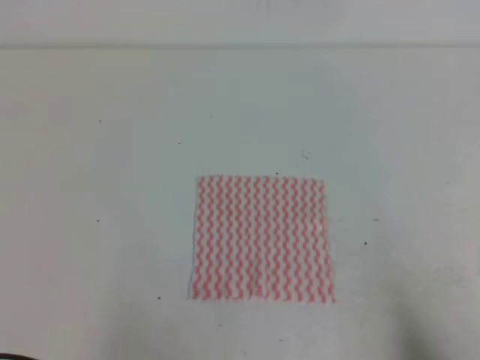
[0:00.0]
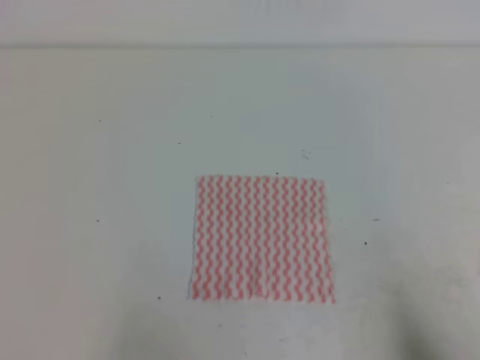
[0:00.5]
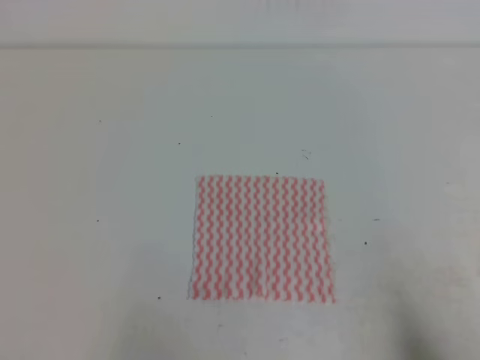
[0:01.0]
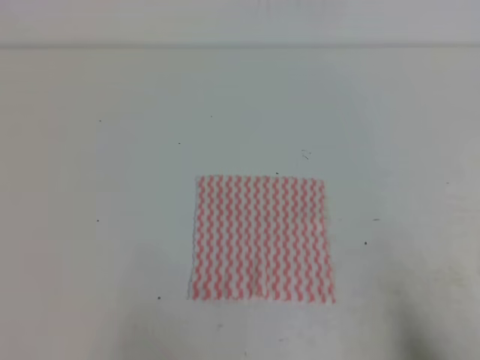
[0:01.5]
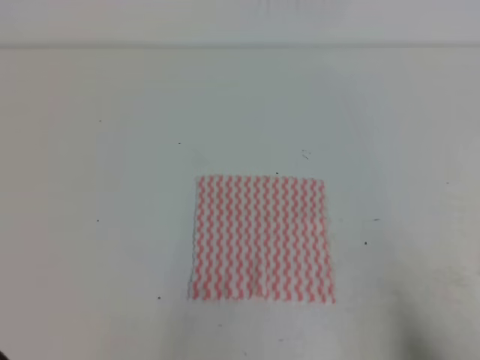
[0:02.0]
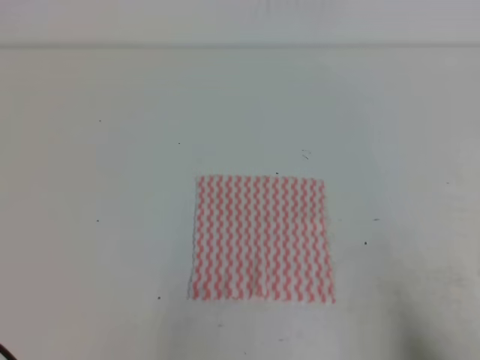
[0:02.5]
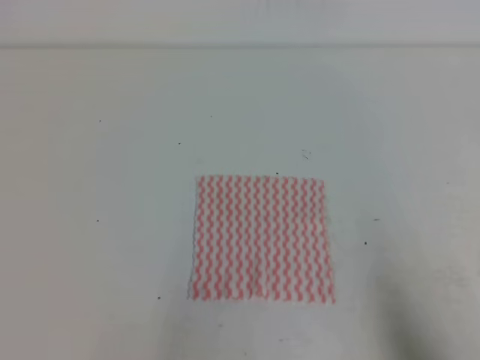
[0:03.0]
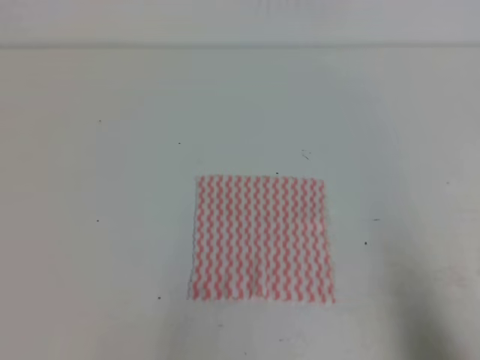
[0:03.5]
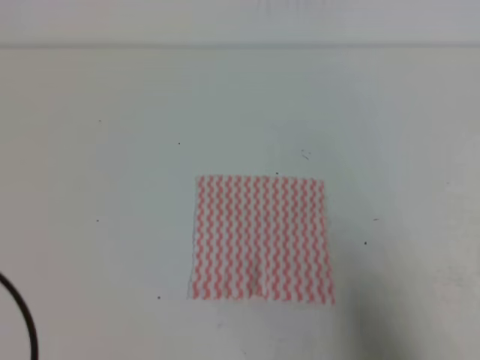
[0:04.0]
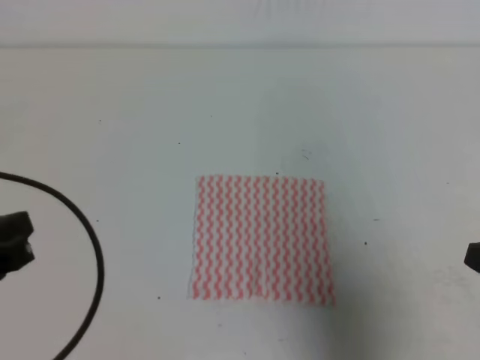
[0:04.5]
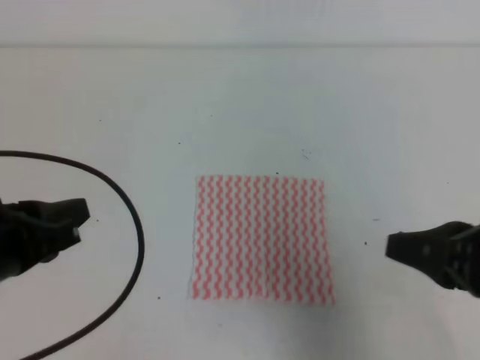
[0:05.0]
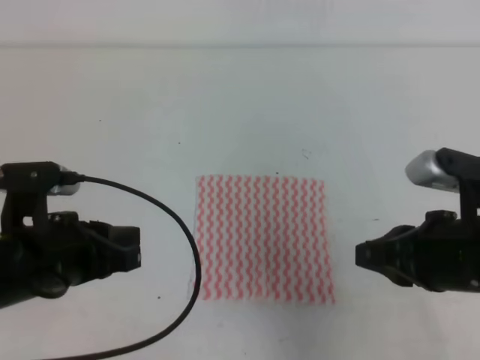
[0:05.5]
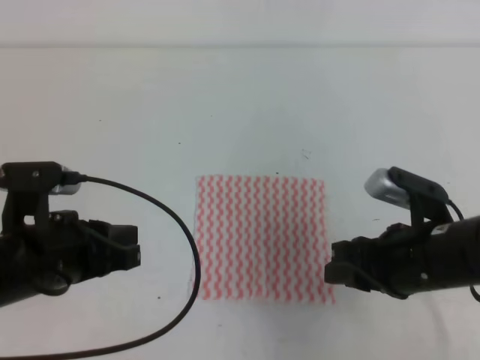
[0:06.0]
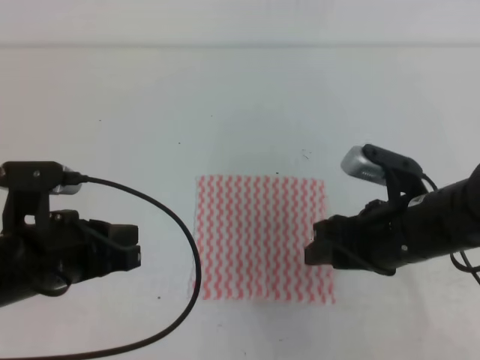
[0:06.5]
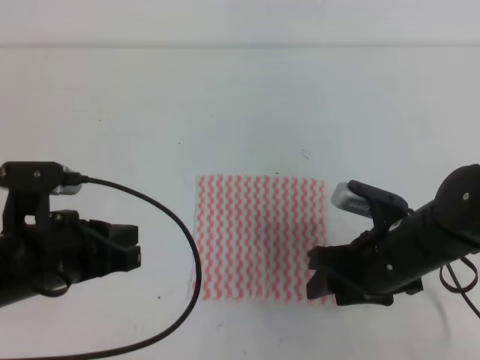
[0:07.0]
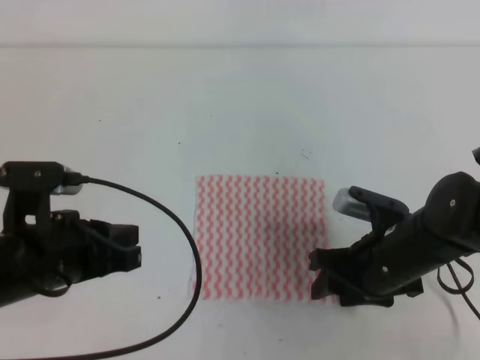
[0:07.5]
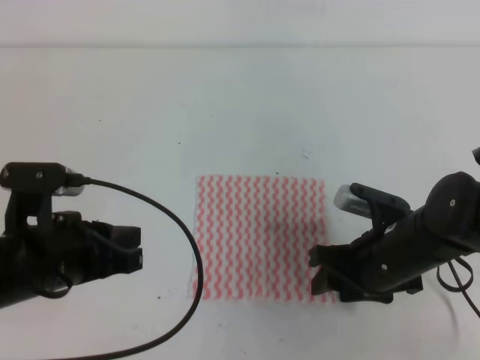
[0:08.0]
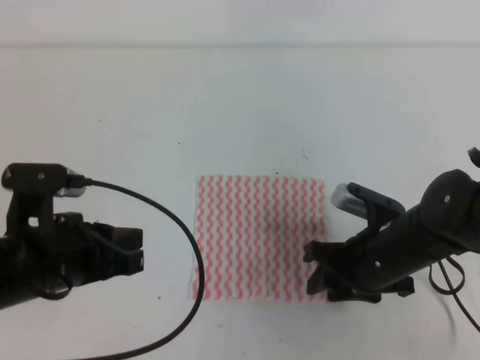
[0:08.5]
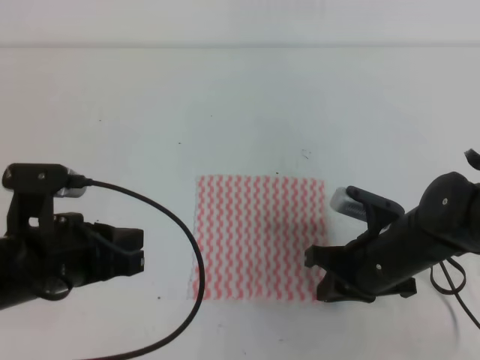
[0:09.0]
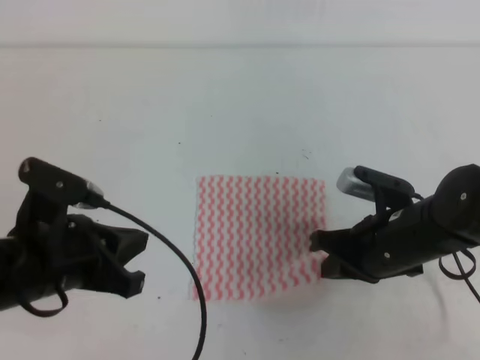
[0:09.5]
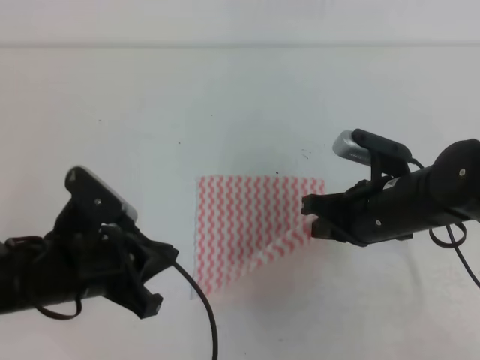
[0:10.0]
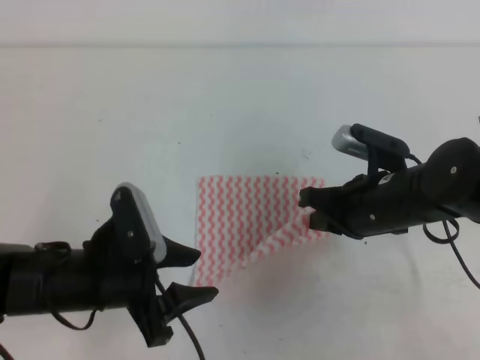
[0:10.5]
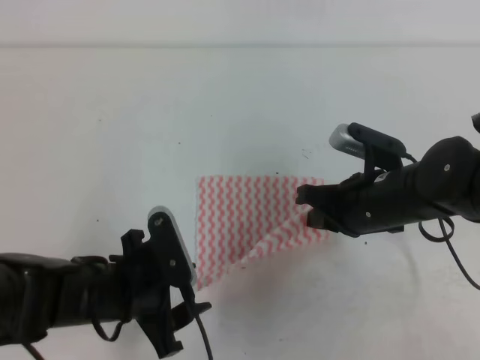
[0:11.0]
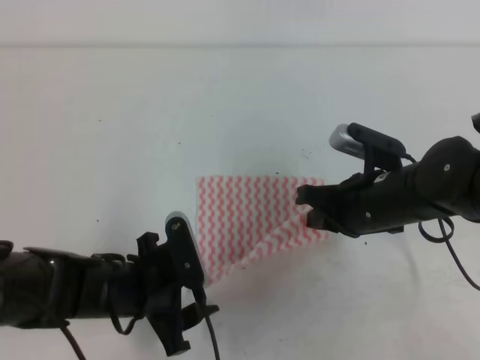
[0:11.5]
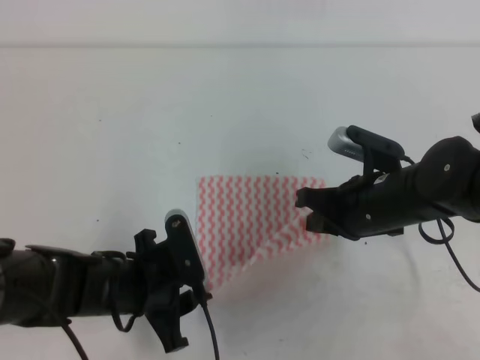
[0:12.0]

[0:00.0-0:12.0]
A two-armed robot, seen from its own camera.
0:02.0 to 0:04.0: The two grippers go approximately 5 cm upward.
0:04.0 to 0:06.0: The right gripper moves forward and to the left, some 20 cm, and opens its fingers. The left gripper goes approximately 15 cm forward and to the right.
0:06.0 to 0:08.0: The right gripper moves downward, approximately 5 cm.
0:08.0 to 0:10.0: The right gripper closes up.
0:10.0 to 0:12.0: The left gripper is displaced downward by roughly 10 cm, and opens.

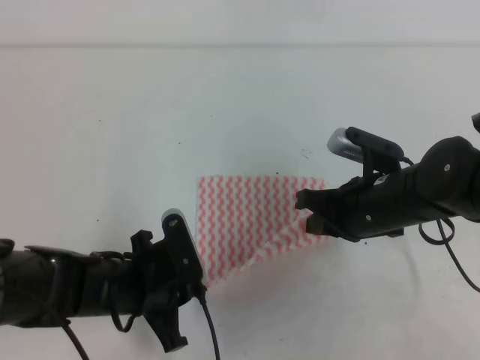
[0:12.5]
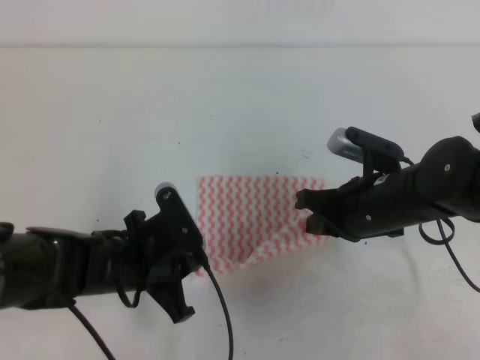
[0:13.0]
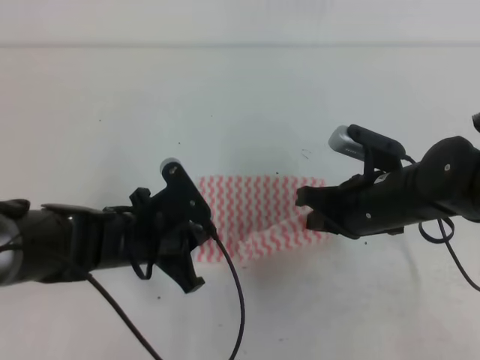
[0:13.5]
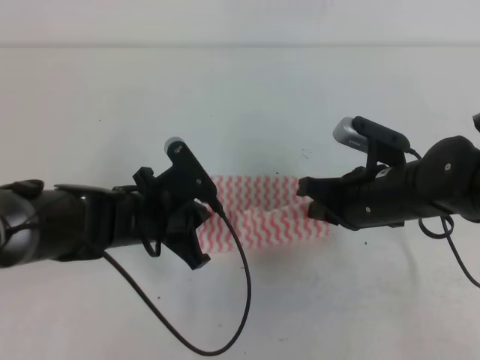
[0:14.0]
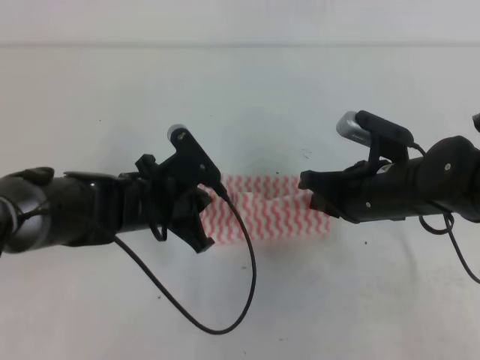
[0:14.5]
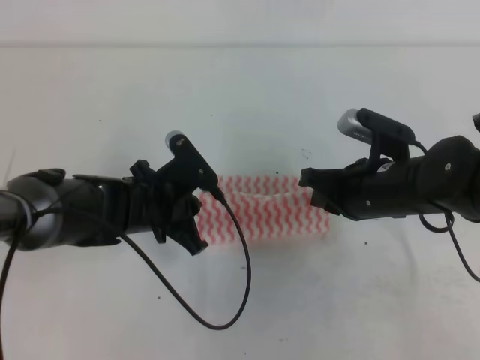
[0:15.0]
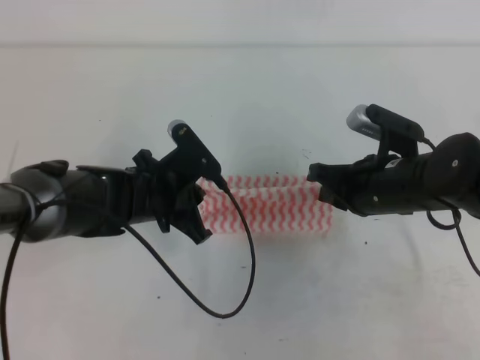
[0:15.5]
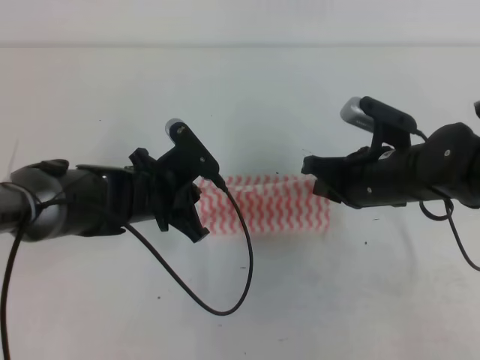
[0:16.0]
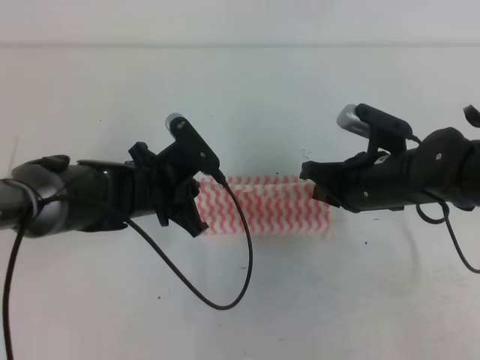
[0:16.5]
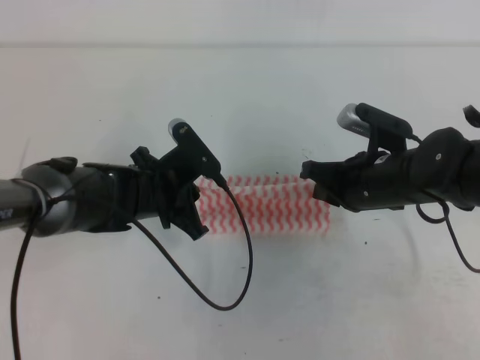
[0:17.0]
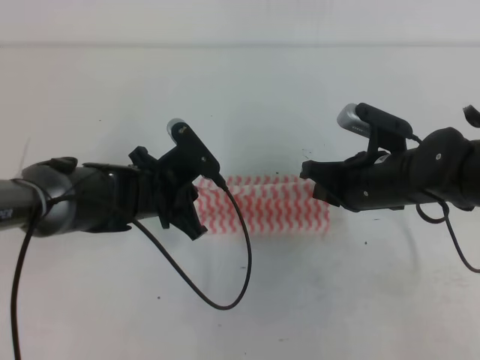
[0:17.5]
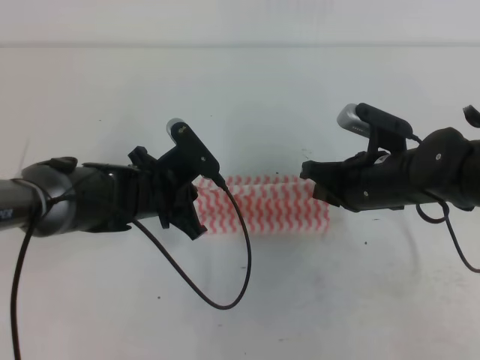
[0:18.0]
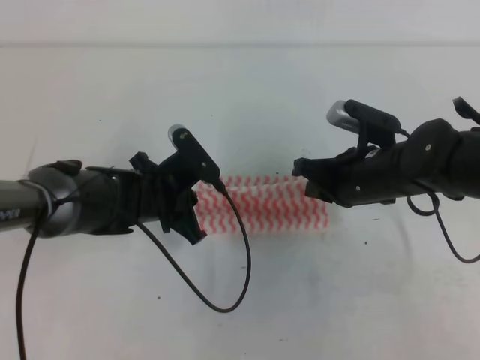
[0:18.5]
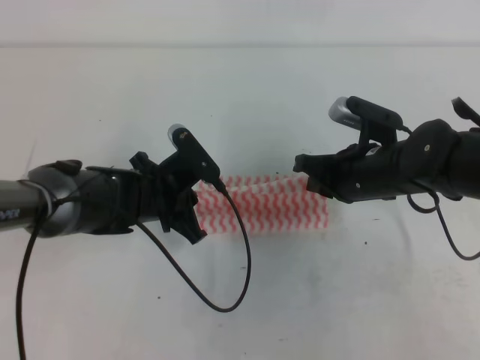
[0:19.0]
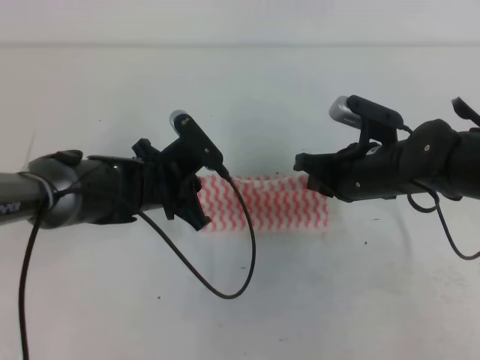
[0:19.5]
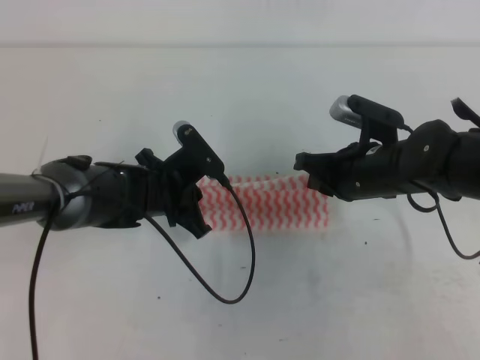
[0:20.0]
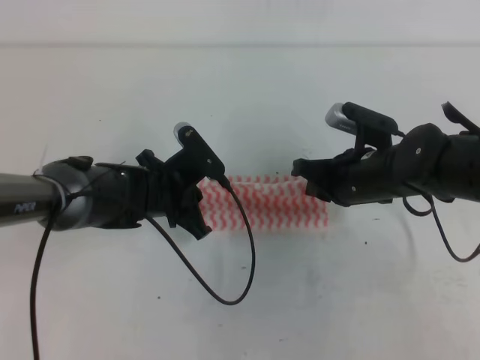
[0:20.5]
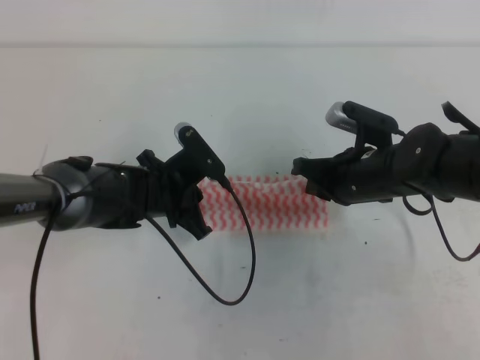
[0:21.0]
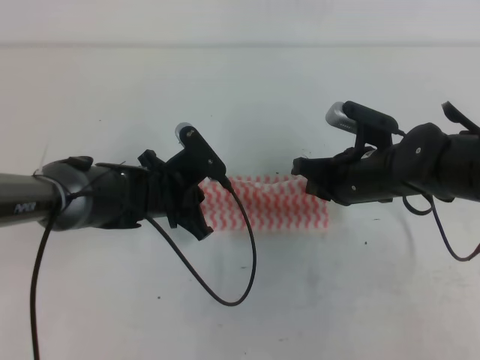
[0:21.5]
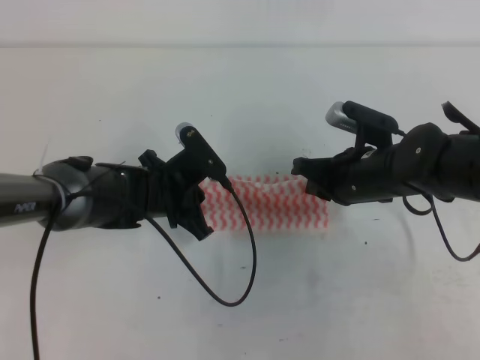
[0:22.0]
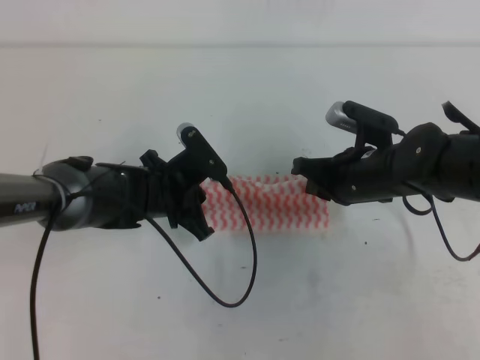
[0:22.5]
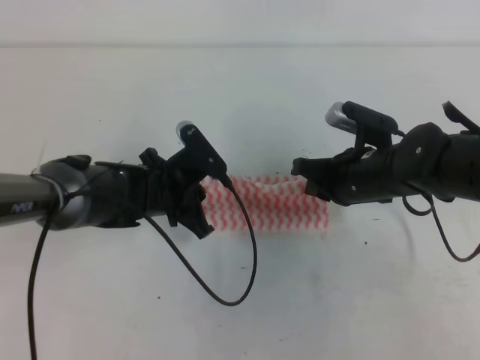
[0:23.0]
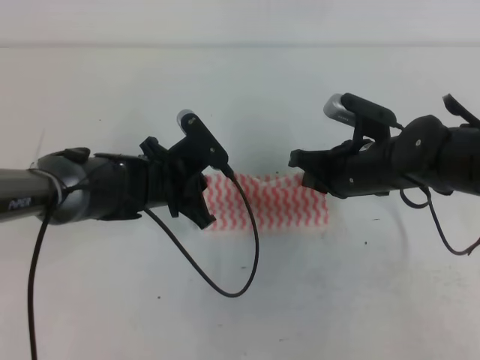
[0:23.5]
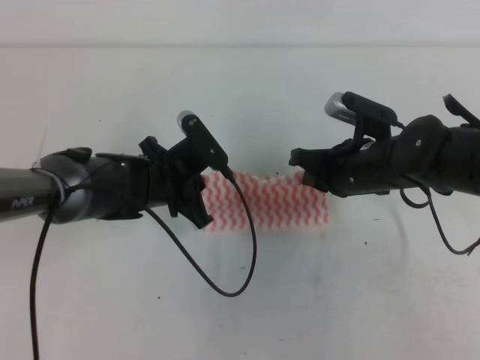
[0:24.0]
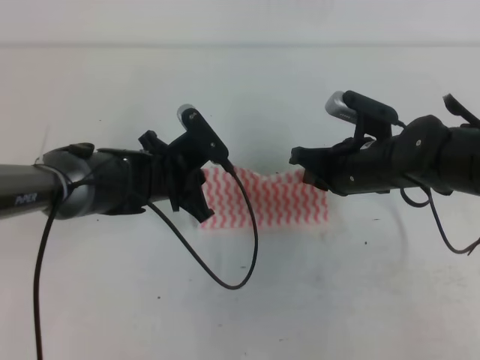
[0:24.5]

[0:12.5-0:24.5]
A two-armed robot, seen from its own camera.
0:12.5 to 0:14.5: The left gripper travels forward by some 10 cm.
0:14.5 to 0:16.5: The grippers make only small movements.
0:16.5 to 0:18.5: The two grippers keep their place.
0:18.5 to 0:20.5: The grippers move only a little.
0:20.5 to 0:22.5: Both grippers stay about where they are.
0:22.5 to 0:24.5: The grippers make only small movements.

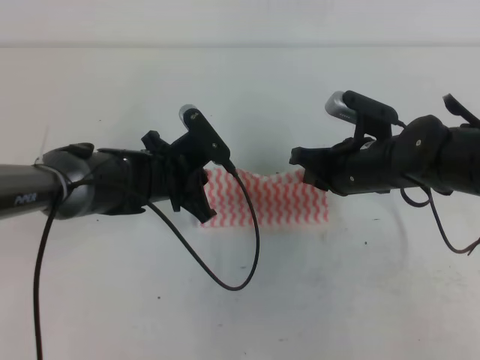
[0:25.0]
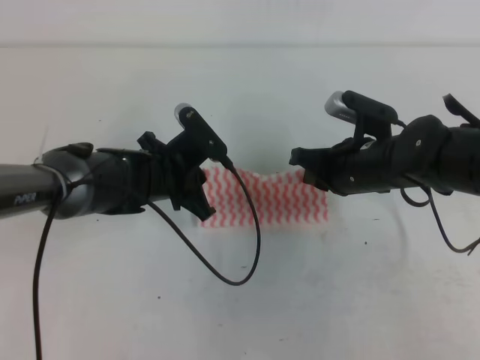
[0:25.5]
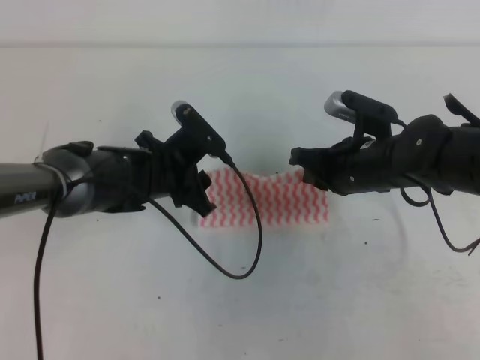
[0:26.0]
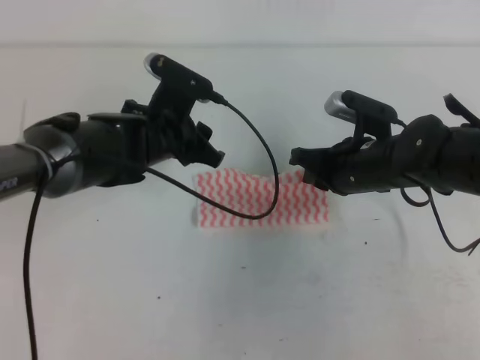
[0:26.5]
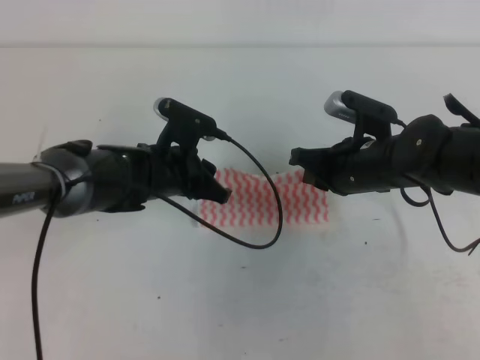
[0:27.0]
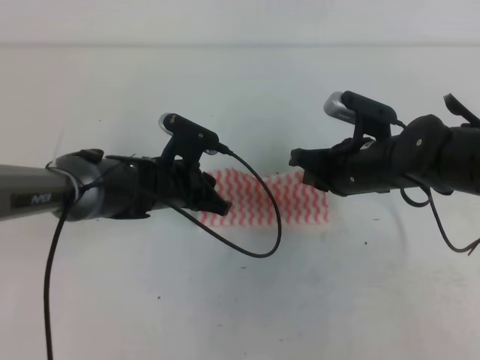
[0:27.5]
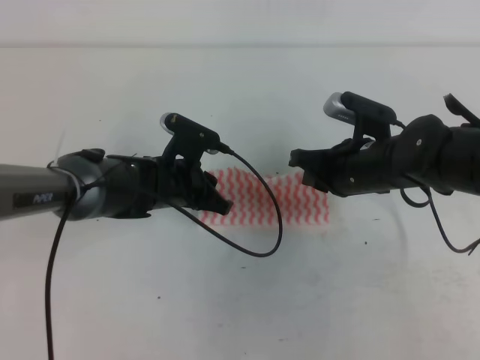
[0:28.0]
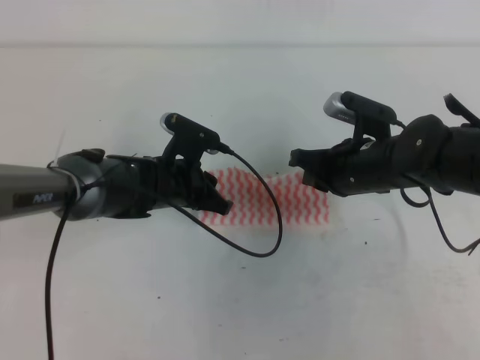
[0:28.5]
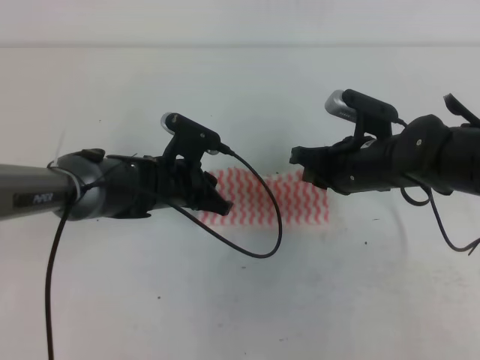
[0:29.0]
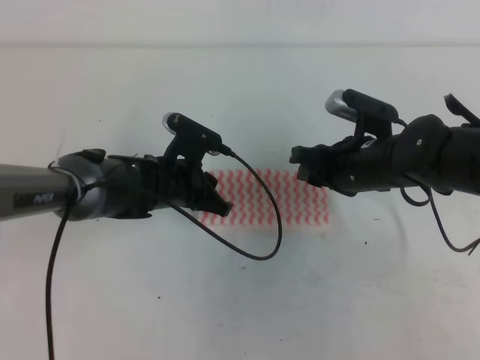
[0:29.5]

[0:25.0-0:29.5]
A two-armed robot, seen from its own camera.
0:25.0 to 0:27.0: The left gripper opens its fingers.
0:27.0 to 0:29.5: The right gripper opens.
